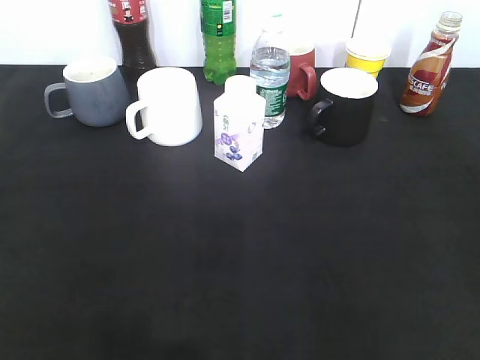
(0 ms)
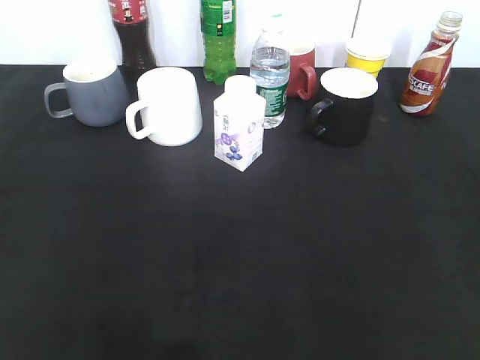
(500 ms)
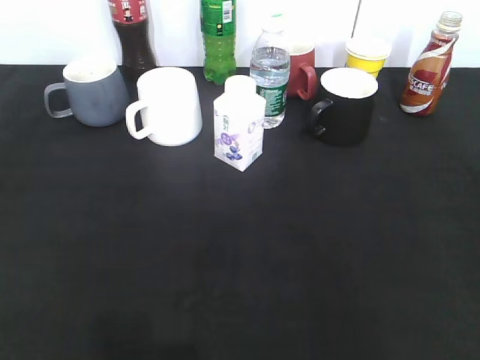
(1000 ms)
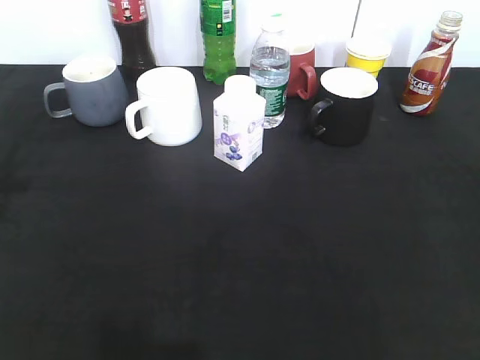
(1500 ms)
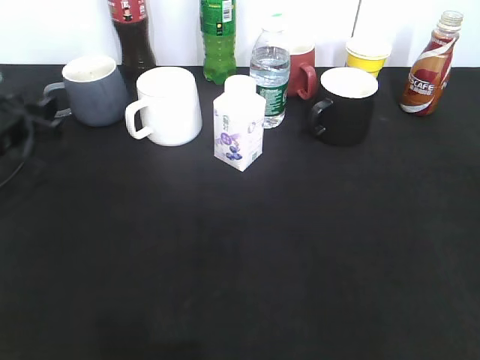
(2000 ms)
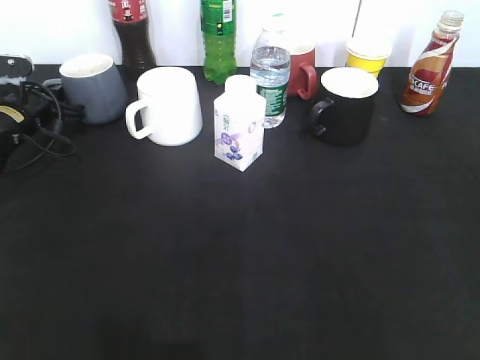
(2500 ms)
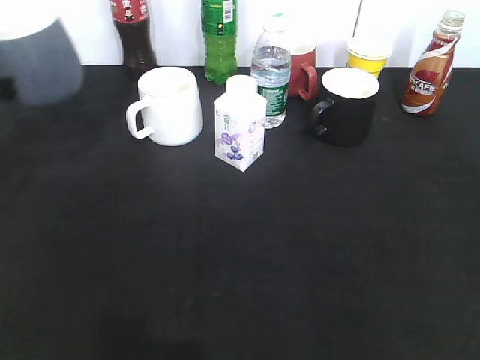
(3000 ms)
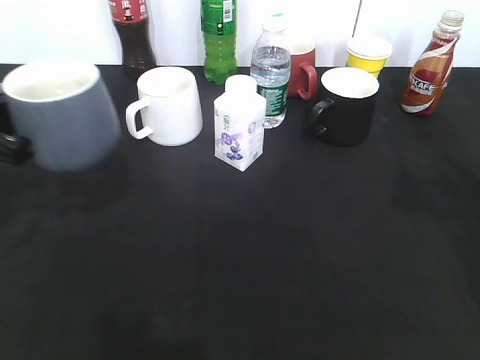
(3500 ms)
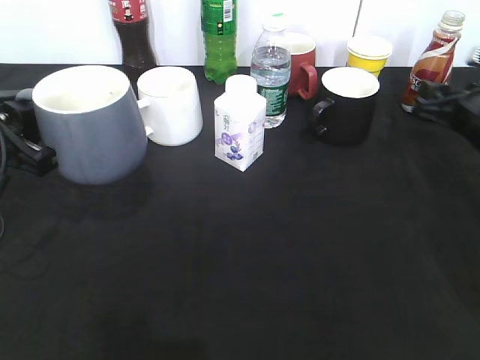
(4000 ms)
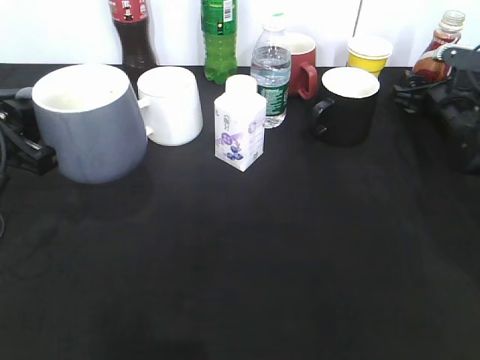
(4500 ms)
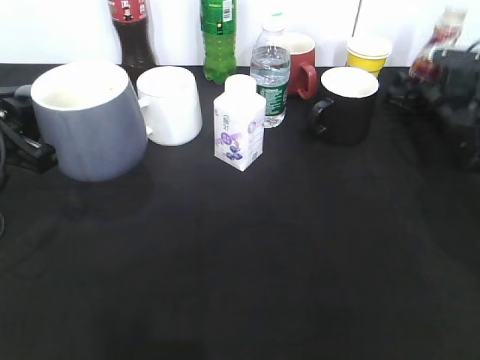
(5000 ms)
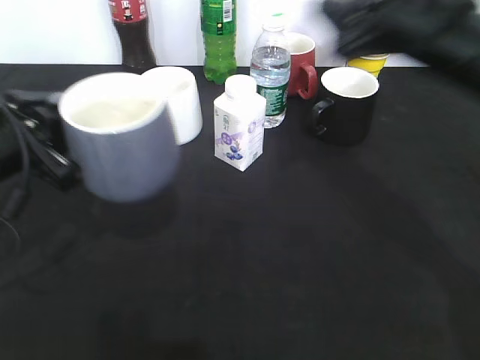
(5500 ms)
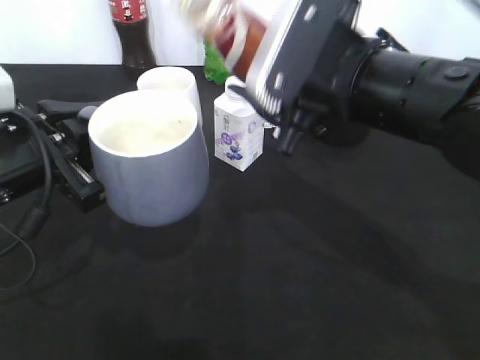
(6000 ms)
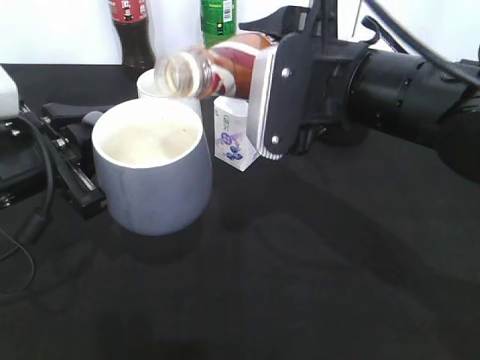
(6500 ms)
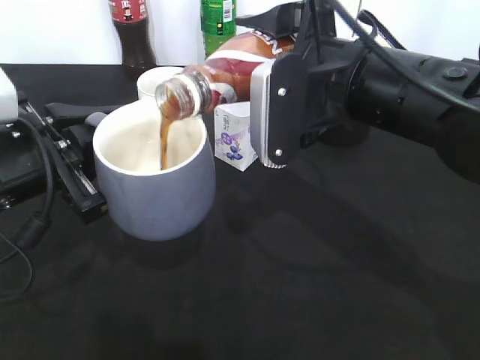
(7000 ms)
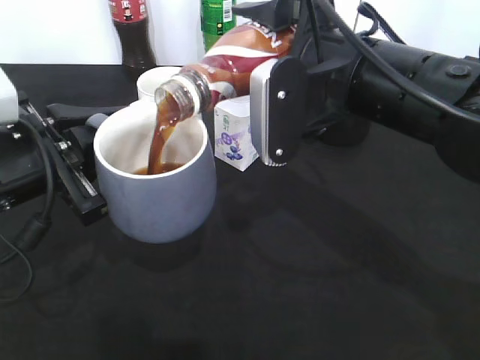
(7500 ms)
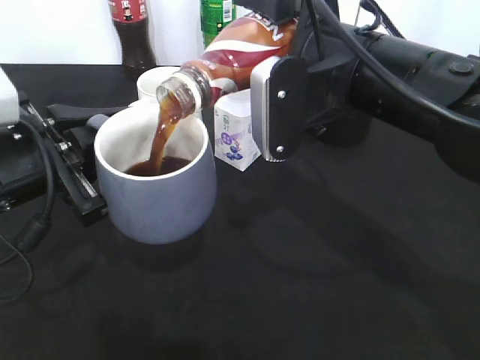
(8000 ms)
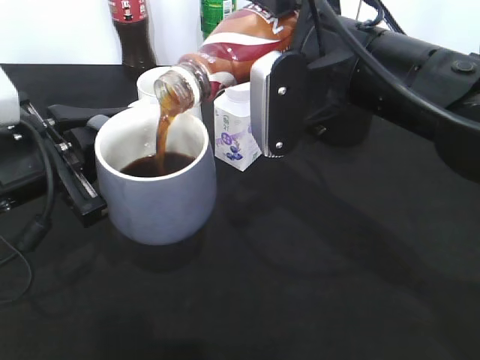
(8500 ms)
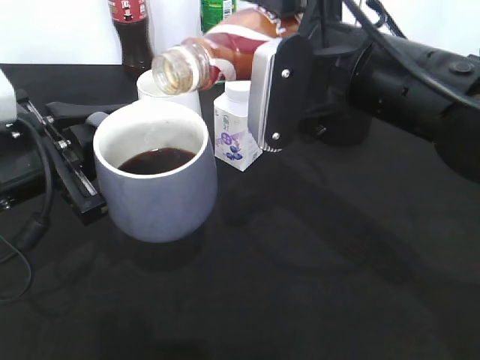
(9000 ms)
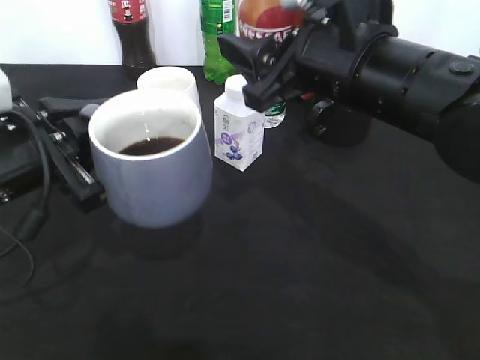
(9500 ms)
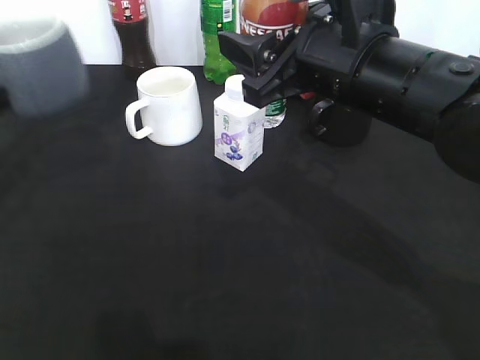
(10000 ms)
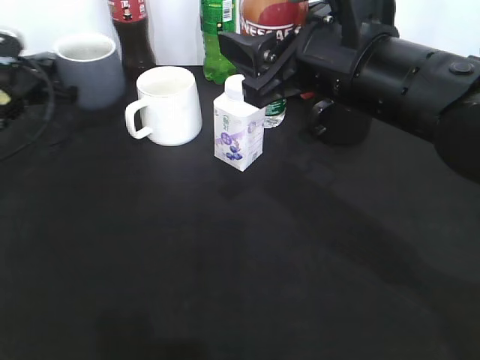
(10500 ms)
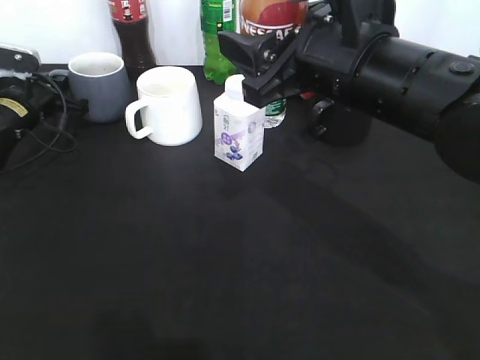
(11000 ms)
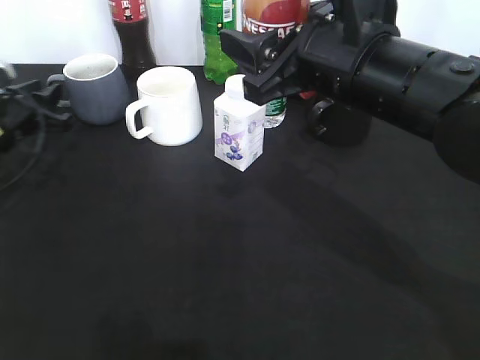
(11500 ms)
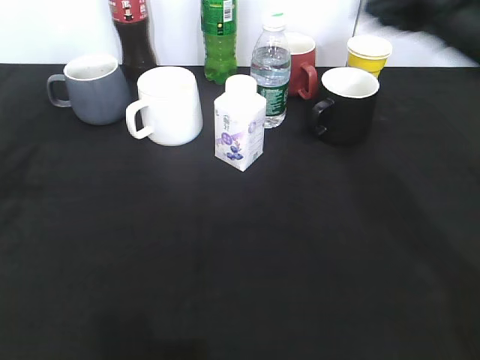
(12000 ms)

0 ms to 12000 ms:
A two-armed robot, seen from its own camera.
Step, 2500 ms to 3500 ms: Lift the grey cup with left gripper.
Step, 4000 ms to 4500 ms: Grasp the bottle with coffee with right gripper.
Step, 5000 ms to 9000 ms: Pour the coffee from bottle to cup with right gripper.
Step, 9500 ms to 11500 ms: Place the grey cup on the table with left gripper.
0 ms to 2000 ms: The left gripper goes roughly 40 cm forward and downward.
2000 ms to 4000 ms: The right gripper travels forward by approximately 35 cm, and opens; the left gripper shifts some 15 cm backward and upward, and closes.
4000 ms to 6000 ms: The right gripper heads to the left, upward and backward, covering about 25 cm, and closes up. Meanwhile the left gripper heads to the right, covering roughly 5 cm.
8000 ms to 10000 ms: The left gripper goes approximately 10 cm to the left and forward.
10000 ms to 12000 ms: The right gripper is displaced to the right and forward by about 15 cm, while the left gripper travels forward and back again, roughly 15 cm each way, and opens.

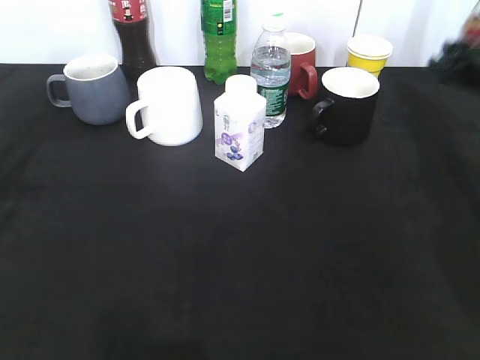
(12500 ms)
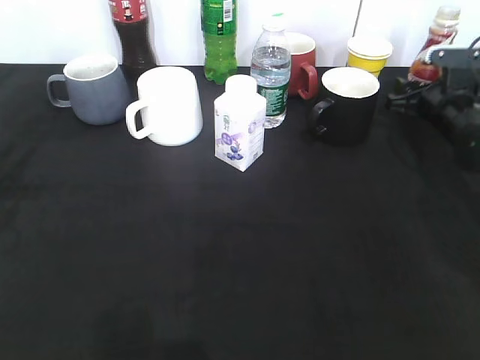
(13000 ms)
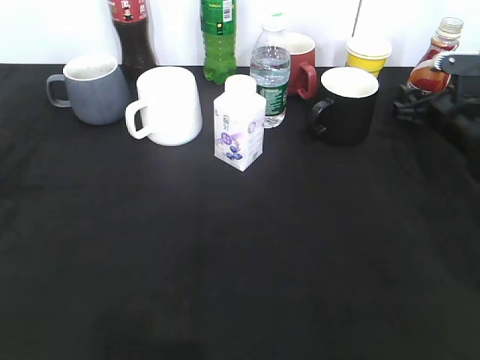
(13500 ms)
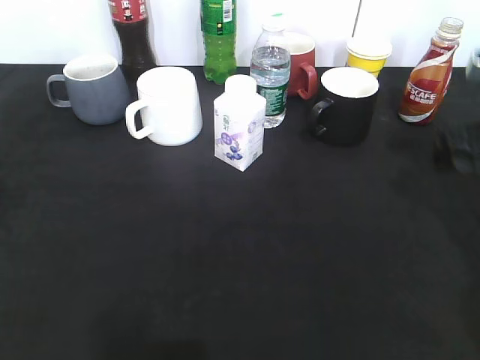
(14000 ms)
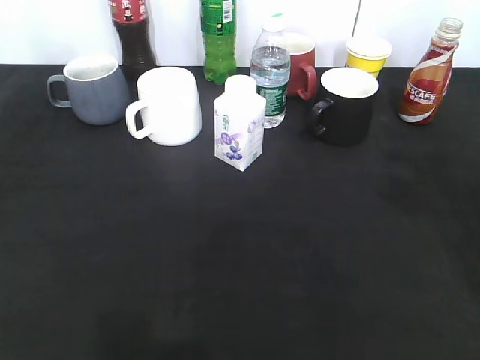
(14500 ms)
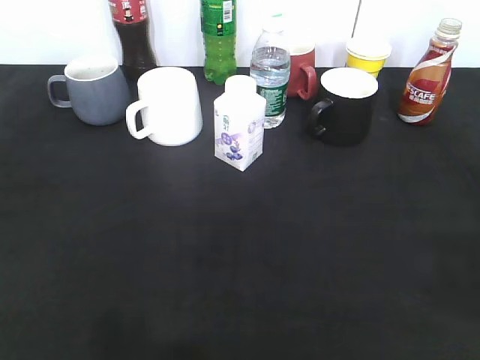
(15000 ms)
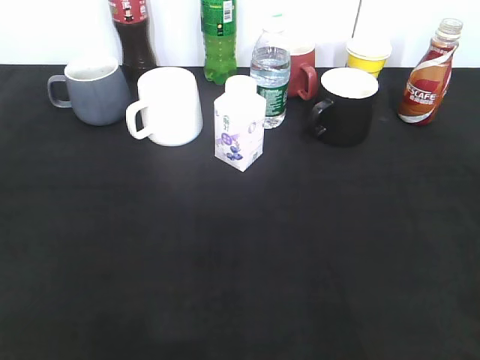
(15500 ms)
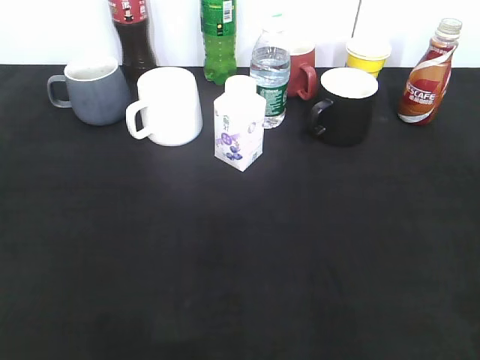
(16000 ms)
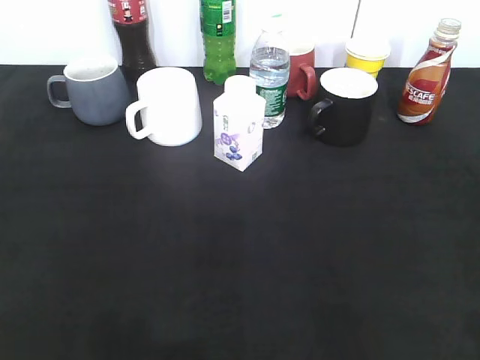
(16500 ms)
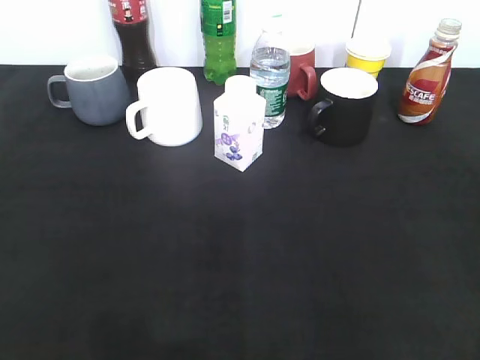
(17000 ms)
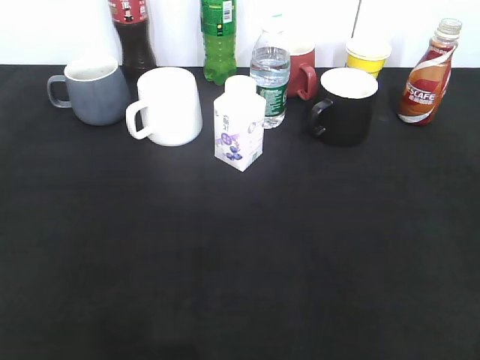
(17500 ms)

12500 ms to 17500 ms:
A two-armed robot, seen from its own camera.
Step, 12500 ms to 14000 ms: Place the coffee bottle on the table with right gripper.
12500 ms to 15000 ms: The left gripper shifts about 20 cm backward and upward, and opens up. Meanwhile the right gripper moves backward and upward, about 35 cm, and opens up.

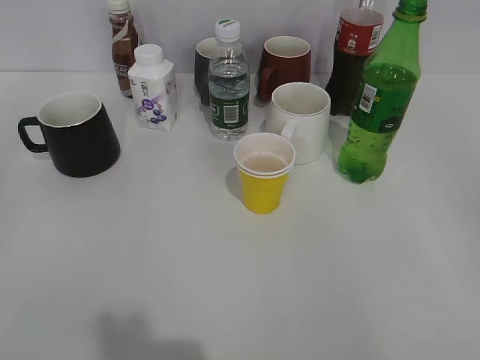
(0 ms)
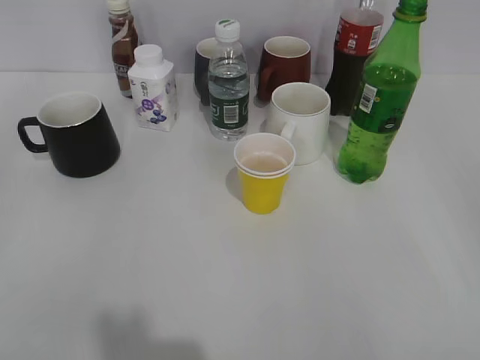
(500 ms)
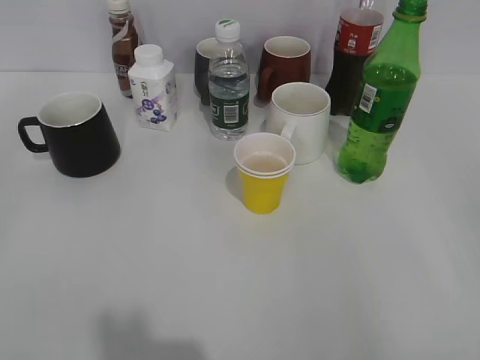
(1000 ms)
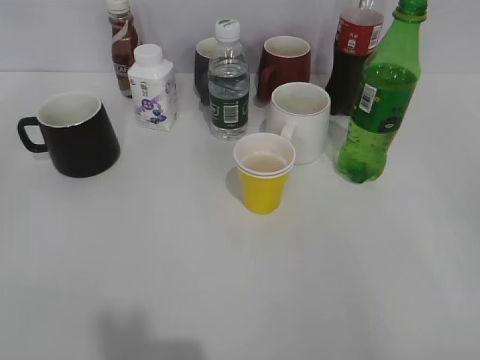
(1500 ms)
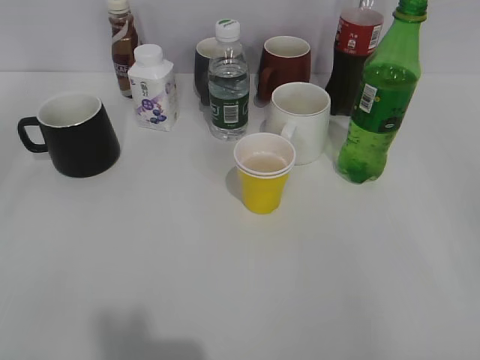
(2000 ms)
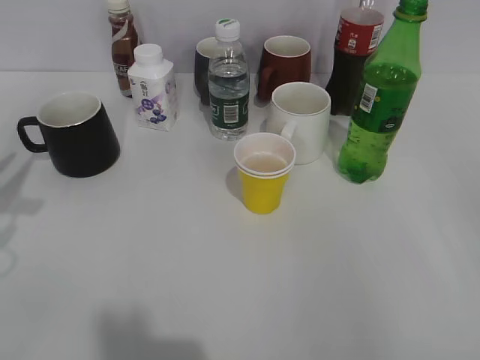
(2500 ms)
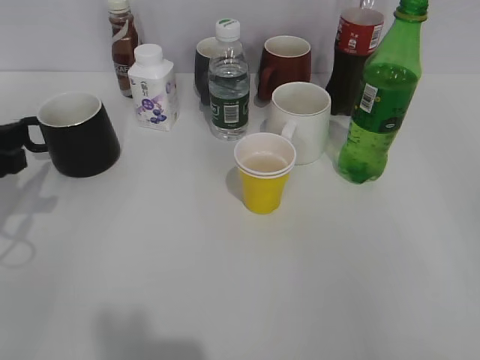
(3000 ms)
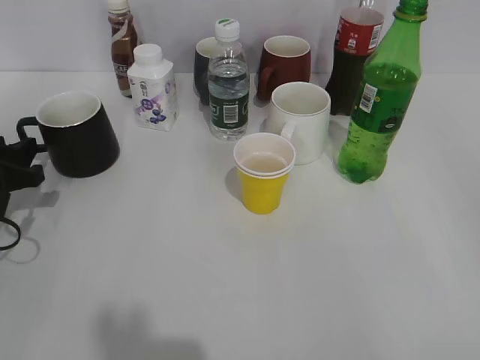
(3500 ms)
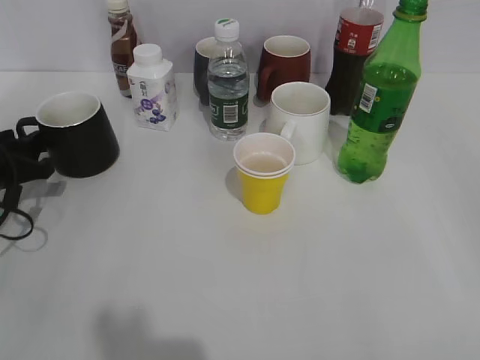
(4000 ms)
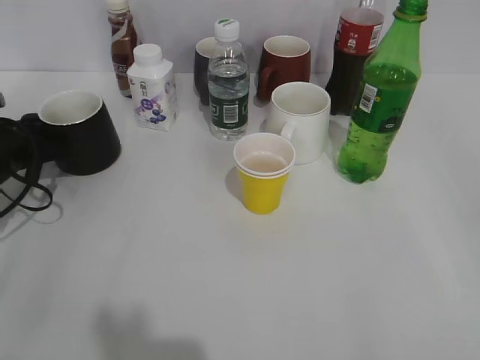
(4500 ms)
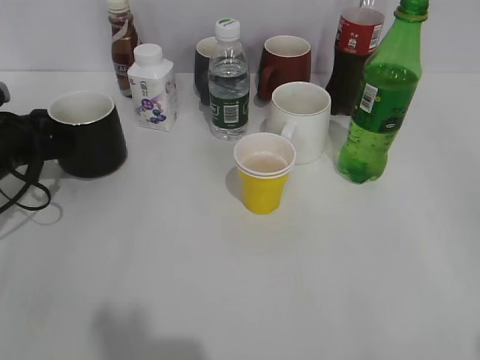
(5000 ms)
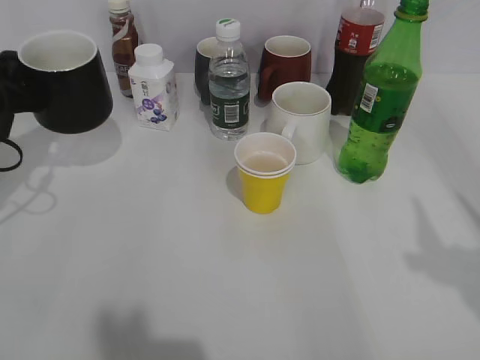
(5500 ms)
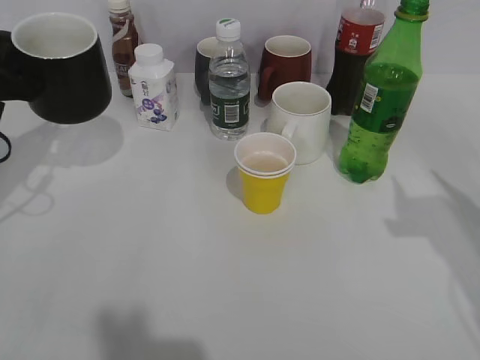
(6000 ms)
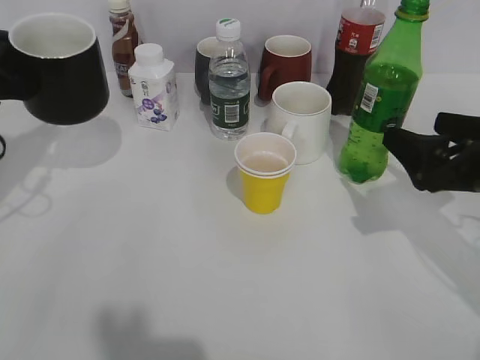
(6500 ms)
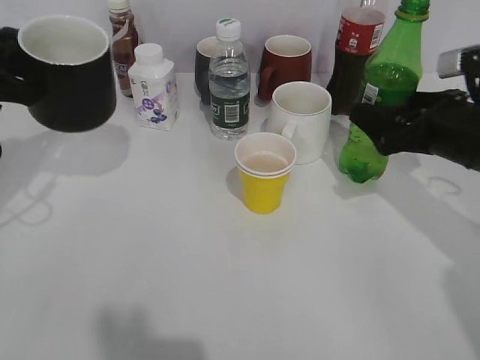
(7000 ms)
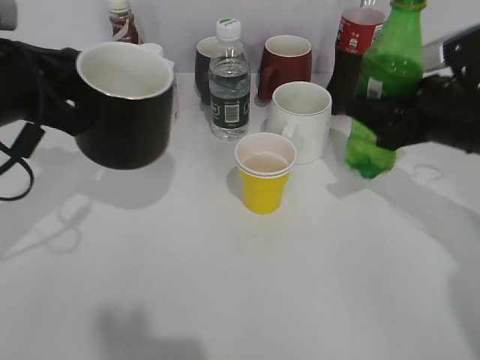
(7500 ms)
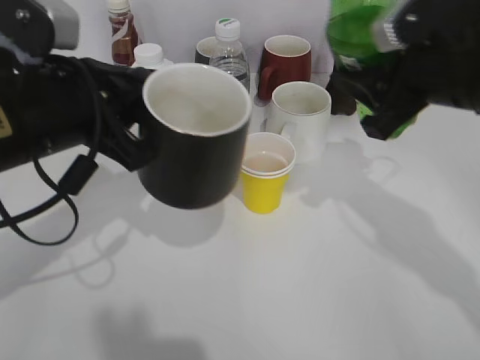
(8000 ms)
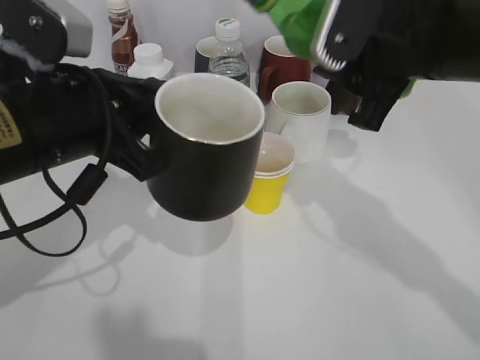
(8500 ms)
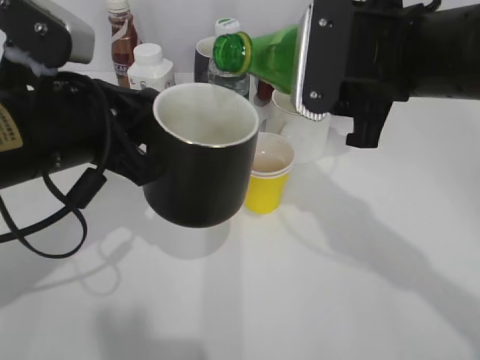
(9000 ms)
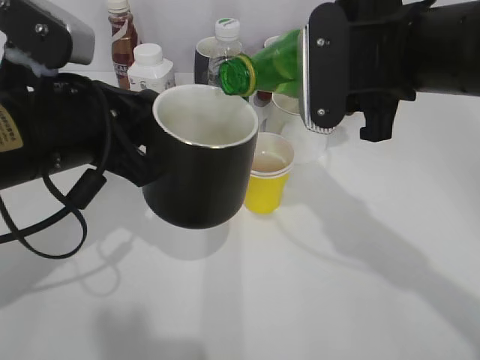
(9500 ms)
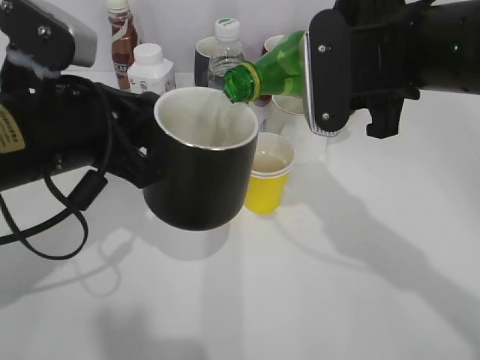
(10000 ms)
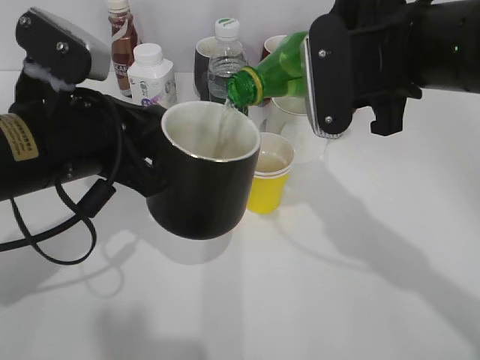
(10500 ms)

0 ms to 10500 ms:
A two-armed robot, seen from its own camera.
Step, 2000 ms to 4500 ms: Grasp the black cup with left gripper.
Step, 5000 ms to 5500 ms: Lift the black cup with left gripper.
Step, 6000 ms to 7000 ms: Grasp the bottle with sprite with right gripper.
2000 ms to 4000 ms: The left gripper heads forward and downward, covering roughly 35 cm.
4000 ms to 6500 ms: The right gripper moves forward, some 20 cm, and opens up. The left gripper travels upward by about 10 cm, and closes its fingers.
6500 ms to 8500 ms: The right gripper heads to the left and upward, covering some 15 cm, and closes its fingers, while the left gripper shifts about 15 cm to the right and backward.
